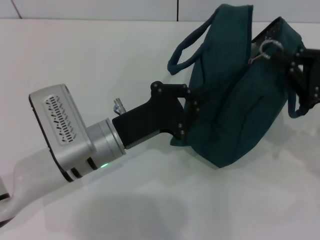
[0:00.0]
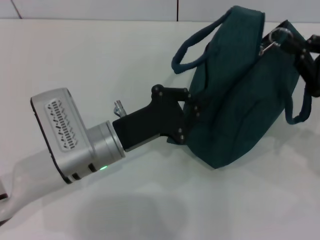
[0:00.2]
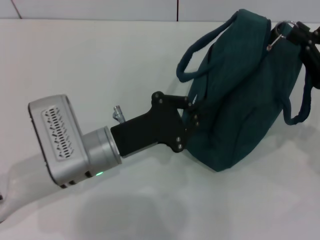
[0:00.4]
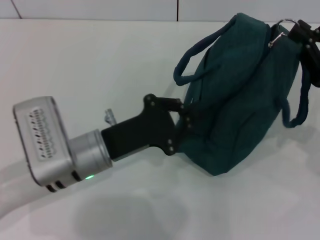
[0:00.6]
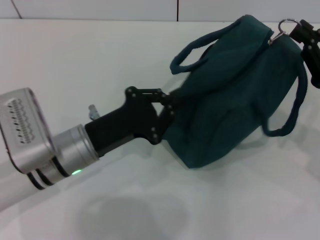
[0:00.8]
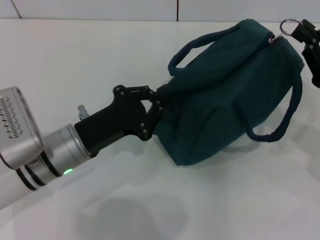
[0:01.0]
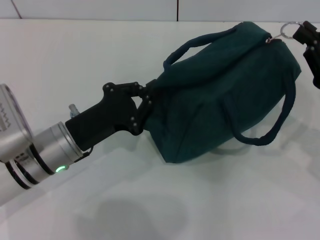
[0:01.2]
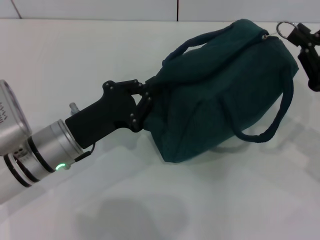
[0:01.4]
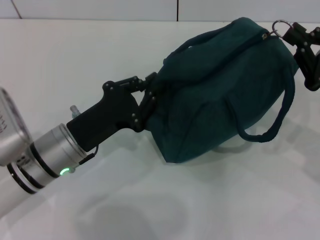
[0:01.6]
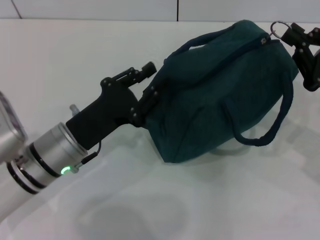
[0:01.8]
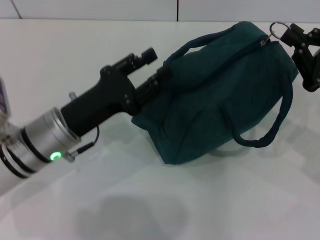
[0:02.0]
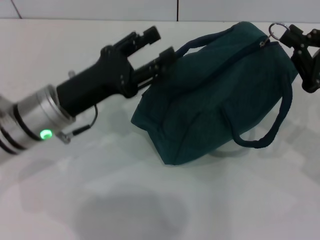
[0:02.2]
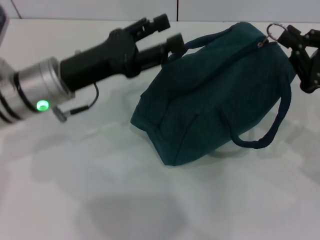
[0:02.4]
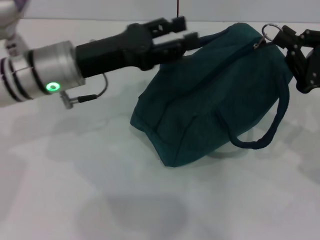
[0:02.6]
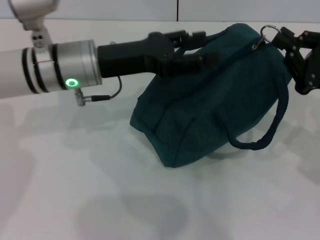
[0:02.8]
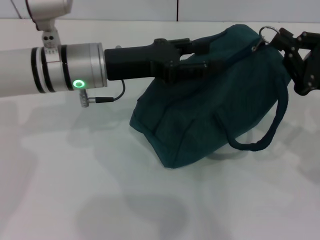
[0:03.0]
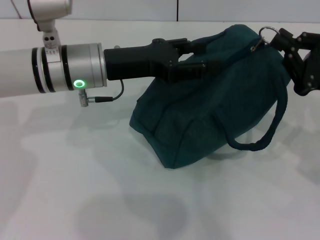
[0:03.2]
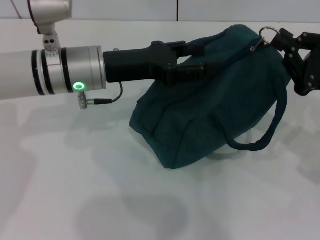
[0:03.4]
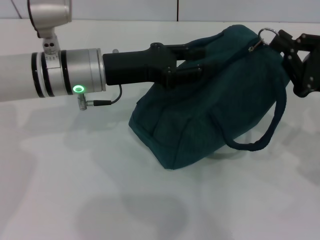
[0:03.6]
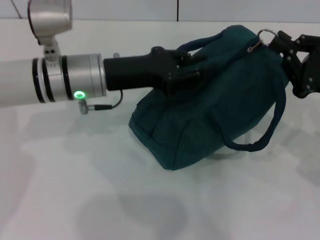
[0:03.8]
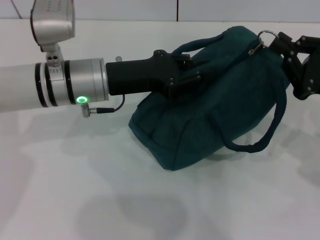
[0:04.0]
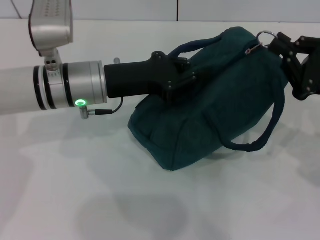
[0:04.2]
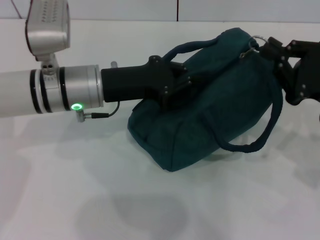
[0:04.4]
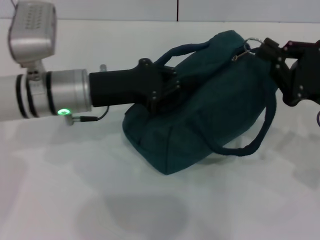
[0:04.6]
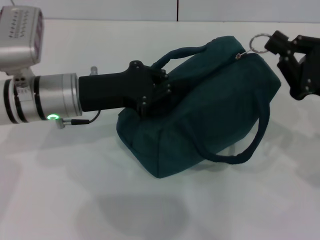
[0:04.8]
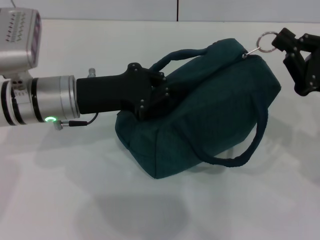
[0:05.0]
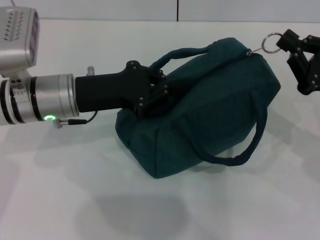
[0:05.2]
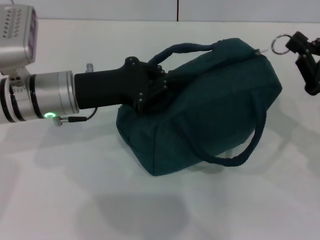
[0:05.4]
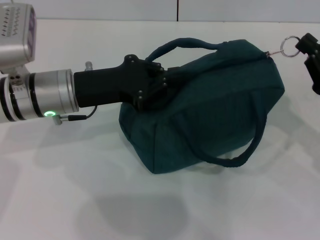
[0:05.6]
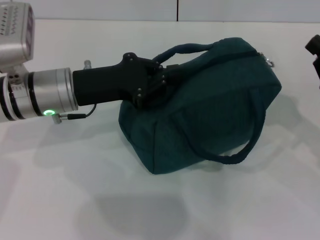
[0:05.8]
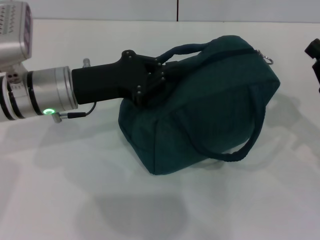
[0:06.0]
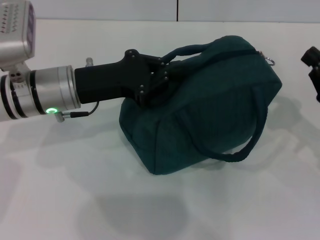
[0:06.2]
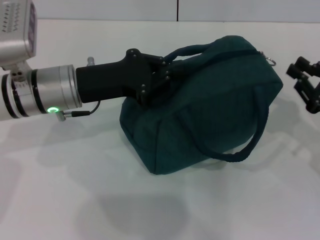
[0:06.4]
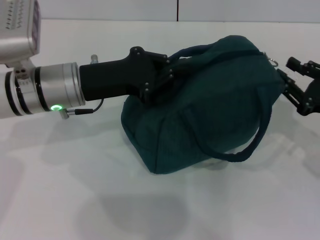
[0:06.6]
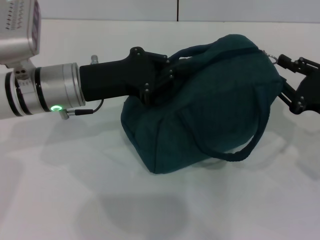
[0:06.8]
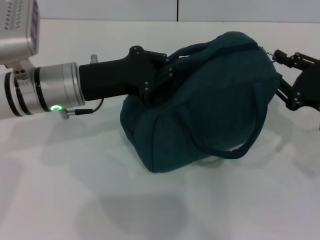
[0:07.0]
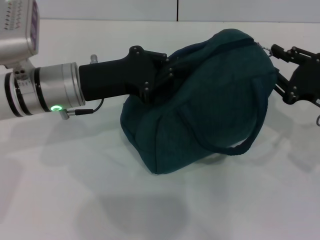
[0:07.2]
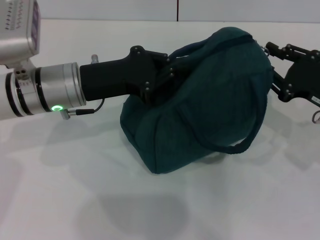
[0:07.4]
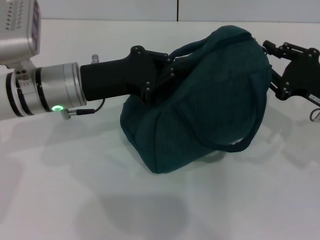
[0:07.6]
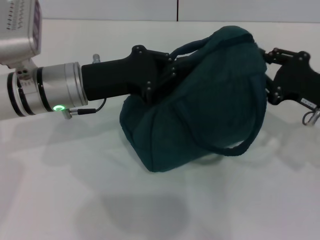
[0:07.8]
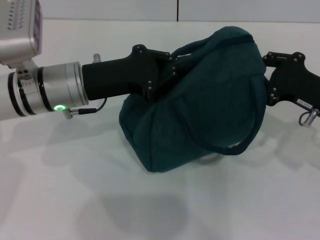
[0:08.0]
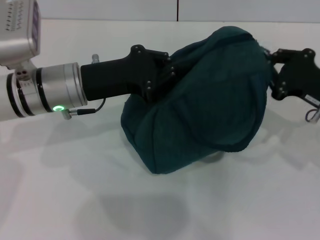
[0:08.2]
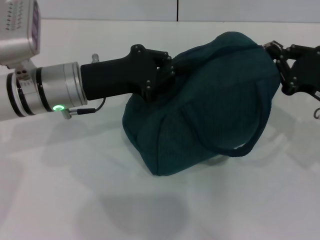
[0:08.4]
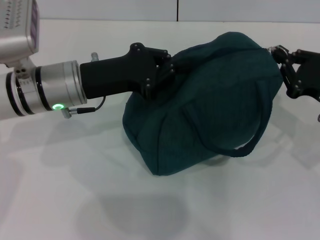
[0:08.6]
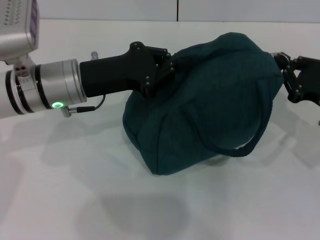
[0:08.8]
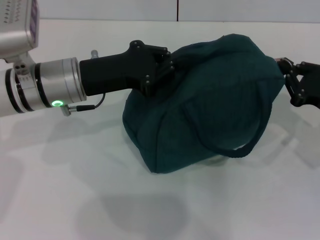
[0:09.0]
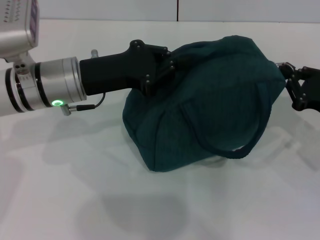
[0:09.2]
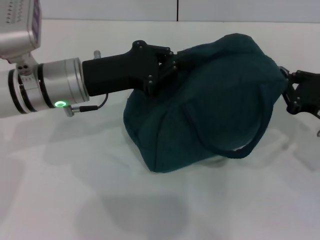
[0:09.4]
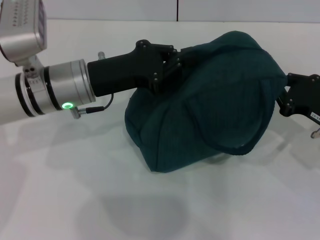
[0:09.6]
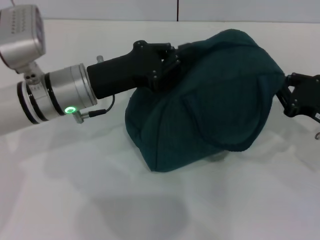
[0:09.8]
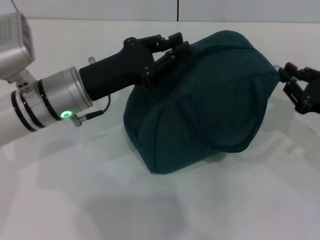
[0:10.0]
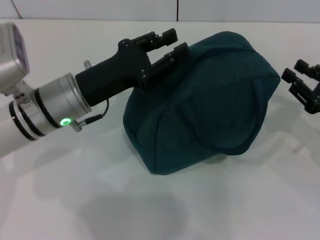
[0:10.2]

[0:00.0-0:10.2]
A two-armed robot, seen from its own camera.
Step, 0:00.0 to 0:09.8: Zip up the lunch bag with your right hand.
0:00.0 to 0:01.4: The left gripper shifts approximately 5 cm to the left.
0:01.4 to 0:03.0: The left gripper goes some 15 cm forward and upward, and opens.
0:03.0 to 0:04.4: The left gripper closes its fingers.
0:04.4 to 0:05.8: The right gripper changes place by roughly 5 cm.
0:05.8 to 0:07.2: The right gripper opens.
0:07.2 to 0:08.8: The right gripper closes up.
0:08.8 to 0:10.2: The grippers move only a little.

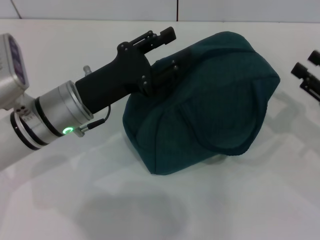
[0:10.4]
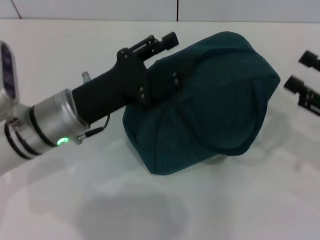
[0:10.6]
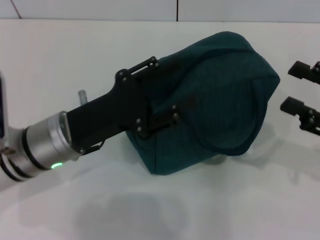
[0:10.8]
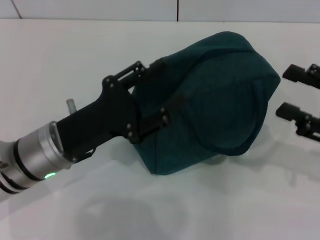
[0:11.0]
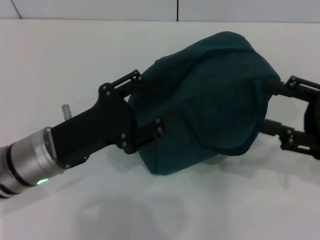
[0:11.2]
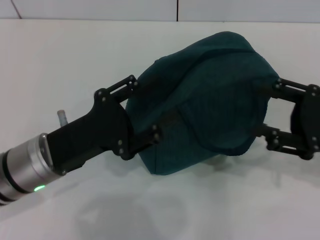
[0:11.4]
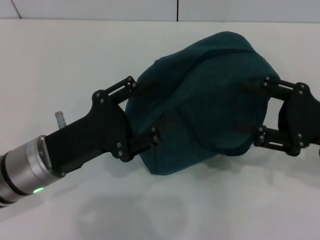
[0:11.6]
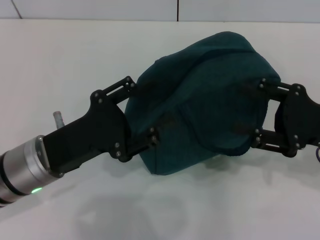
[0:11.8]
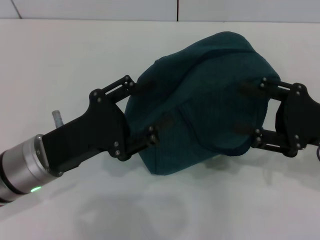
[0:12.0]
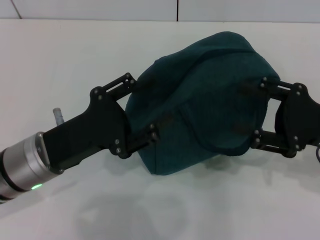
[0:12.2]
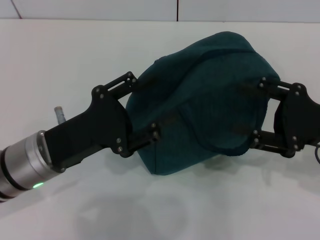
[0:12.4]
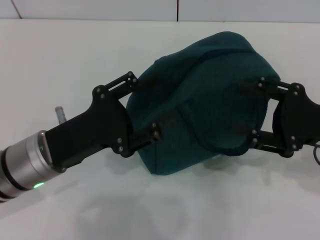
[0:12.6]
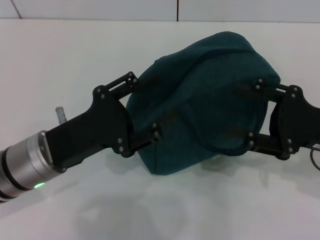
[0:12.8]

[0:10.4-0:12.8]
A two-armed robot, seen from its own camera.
Step, 0:10.4 to 0:11.4: Hold the lunch bag with your left hand.
0:10.4 to 0:11.6: The right gripper travels to the left by about 5 cm, and opens its fingers. Meanwhile the left gripper is displaced backward by roughly 5 cm, and opens up.
0:11.6 to 0:12.8: Both grippers stay put.

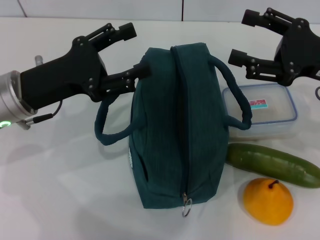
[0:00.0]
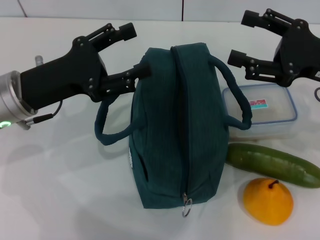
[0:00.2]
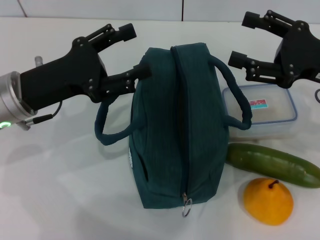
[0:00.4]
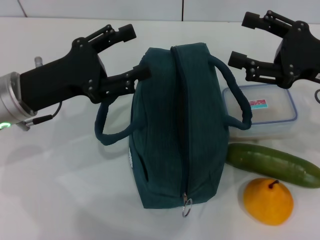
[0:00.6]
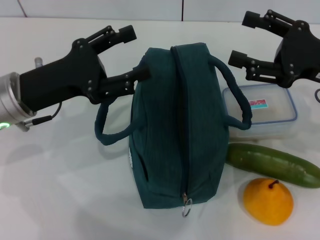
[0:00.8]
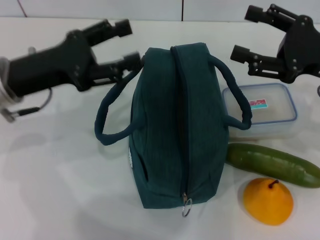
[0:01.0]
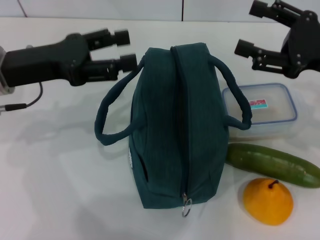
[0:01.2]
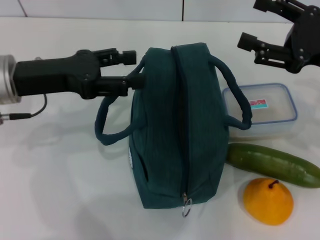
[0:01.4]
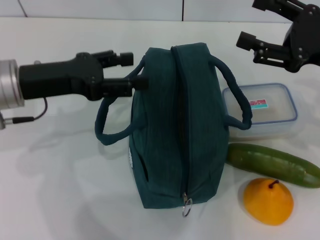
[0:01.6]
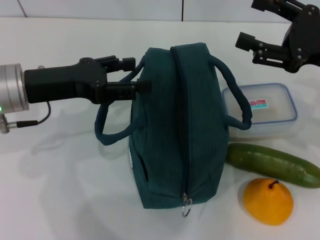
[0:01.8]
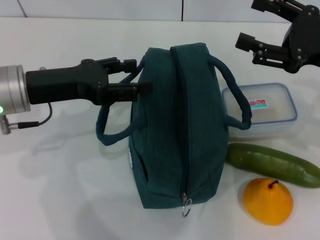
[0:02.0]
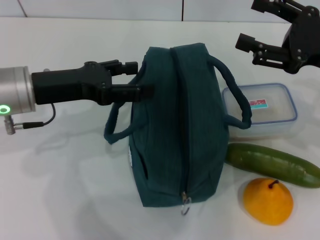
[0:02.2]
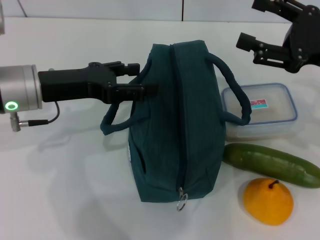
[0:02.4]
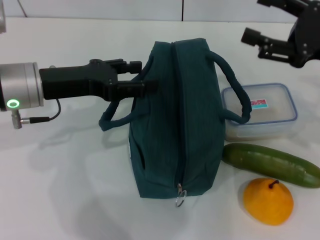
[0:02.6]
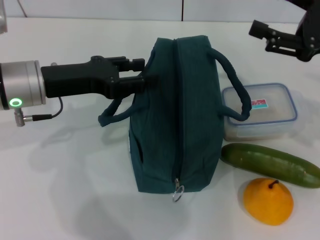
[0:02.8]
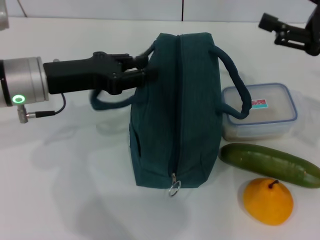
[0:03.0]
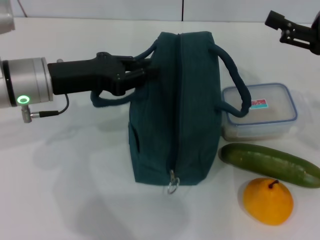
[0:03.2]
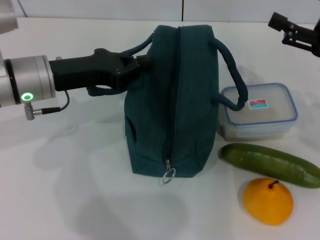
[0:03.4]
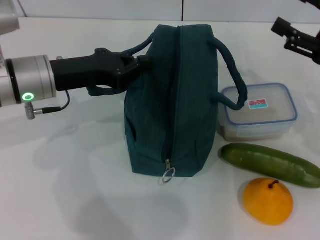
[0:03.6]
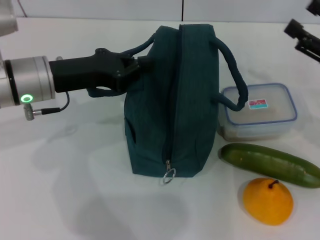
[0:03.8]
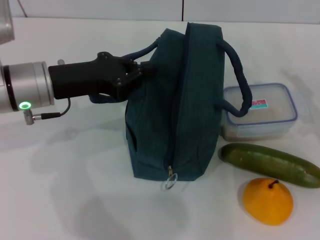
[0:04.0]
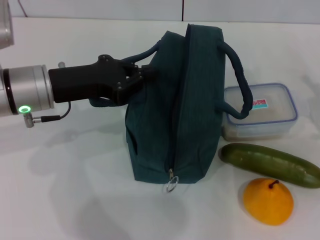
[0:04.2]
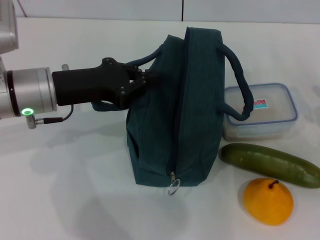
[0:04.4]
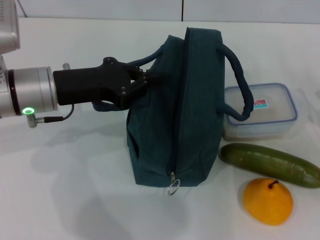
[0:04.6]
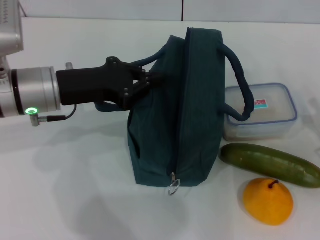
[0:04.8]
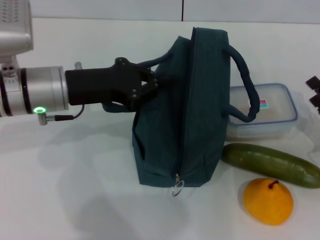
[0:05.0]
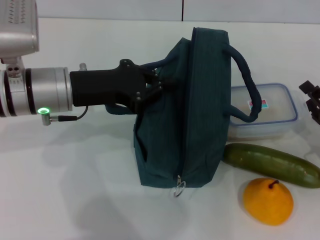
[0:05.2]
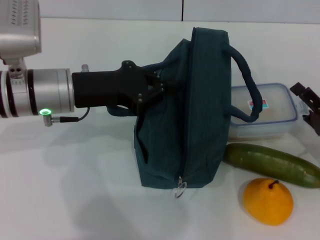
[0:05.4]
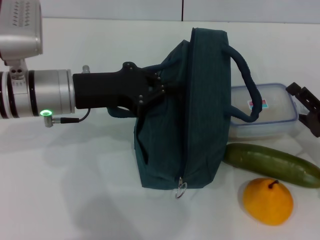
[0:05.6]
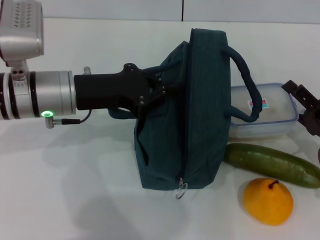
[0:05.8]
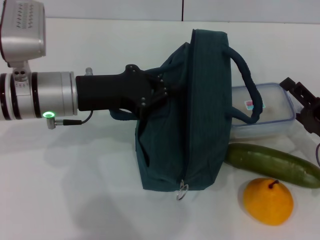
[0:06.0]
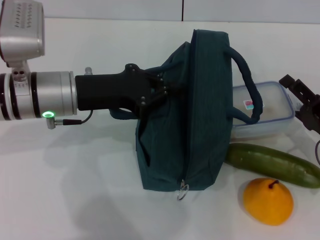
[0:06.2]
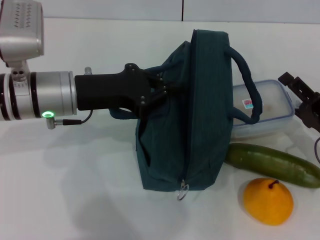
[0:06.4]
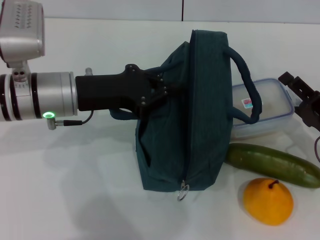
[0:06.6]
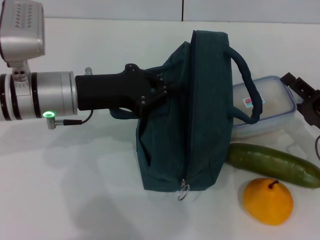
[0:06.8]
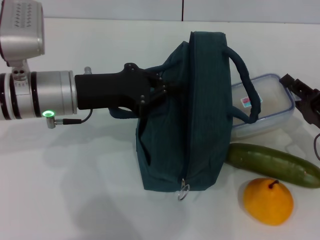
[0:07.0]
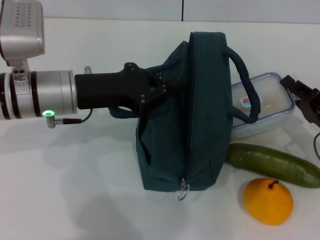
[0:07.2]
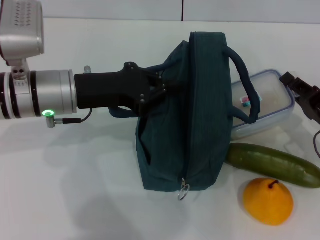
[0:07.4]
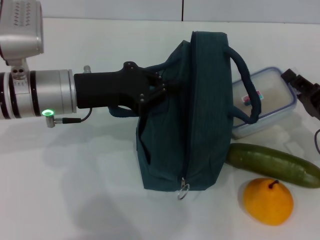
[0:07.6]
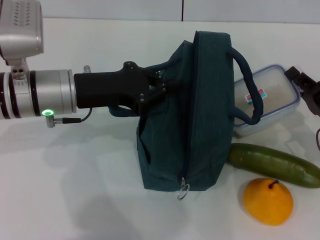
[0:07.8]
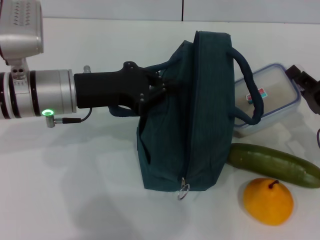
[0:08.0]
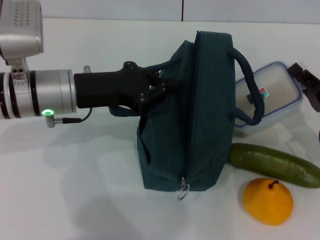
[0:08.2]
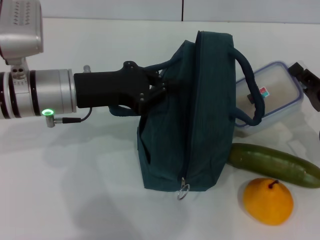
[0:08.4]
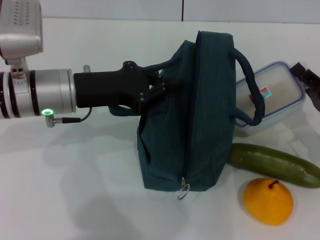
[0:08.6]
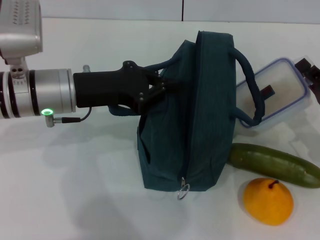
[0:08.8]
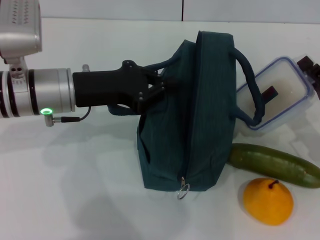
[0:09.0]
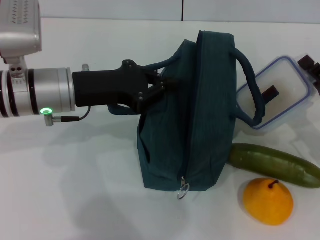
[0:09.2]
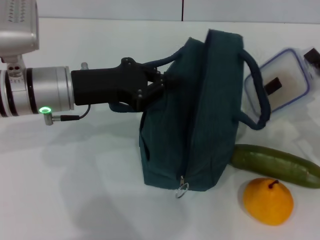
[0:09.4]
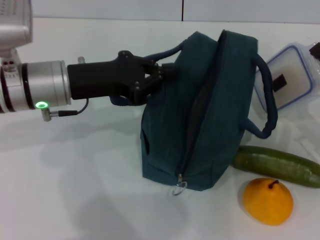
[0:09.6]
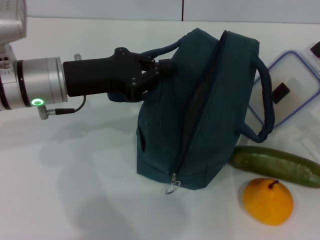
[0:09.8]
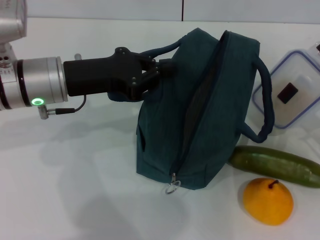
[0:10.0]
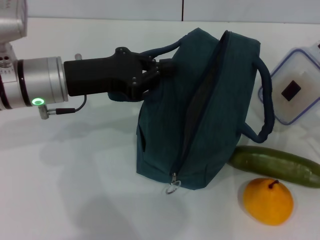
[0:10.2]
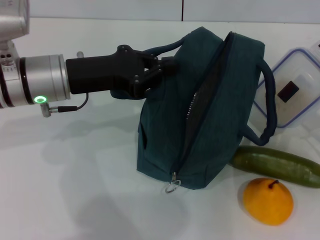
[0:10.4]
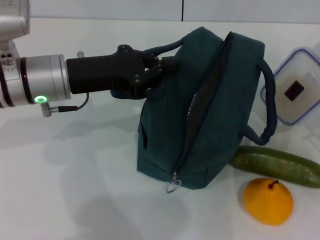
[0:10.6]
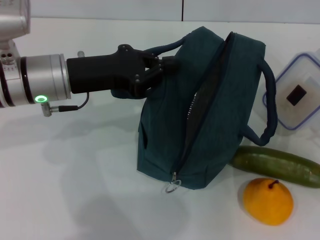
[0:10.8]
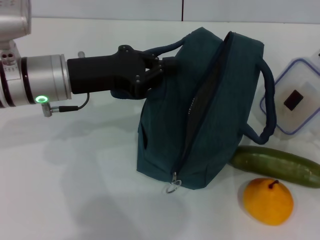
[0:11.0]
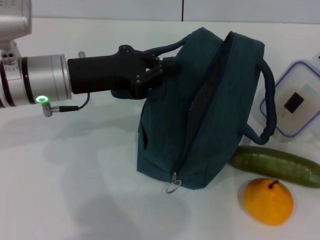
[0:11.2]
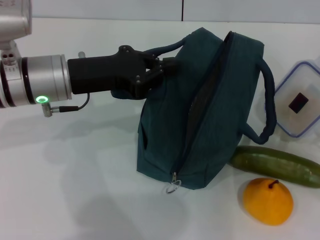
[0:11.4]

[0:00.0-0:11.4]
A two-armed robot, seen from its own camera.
Step, 0:00.0 to 0:04.4: Hold the lunch bag with your left hand.
0:01.4 to 0:02.8: The grippers stay close to where they were, moving slightly.
0:02.8 to 0:04.2: The right gripper heads downward, backward and to the right, covering about 15 cm. Meanwhile the left gripper closes.
0:04.2 to 0:05.6: The right gripper is displaced downward by approximately 5 cm.
0:05.6 to 0:07.2: The right gripper closes its fingers.
0:07.2 to 0:08.6: The grippers stay close to where they were, moving slightly.
0:10.0 to 0:11.4: The grippers move only a little.
